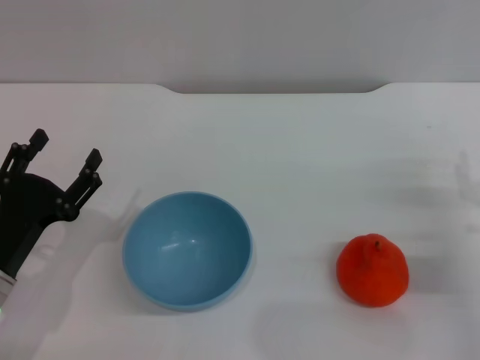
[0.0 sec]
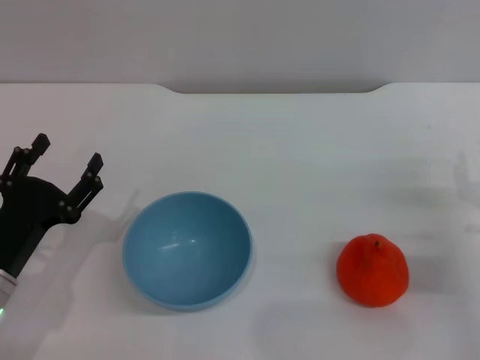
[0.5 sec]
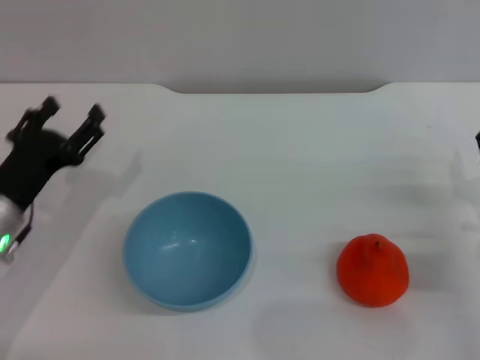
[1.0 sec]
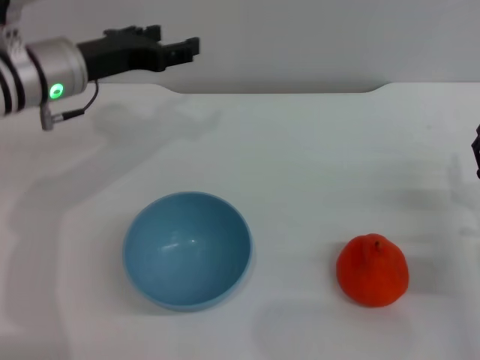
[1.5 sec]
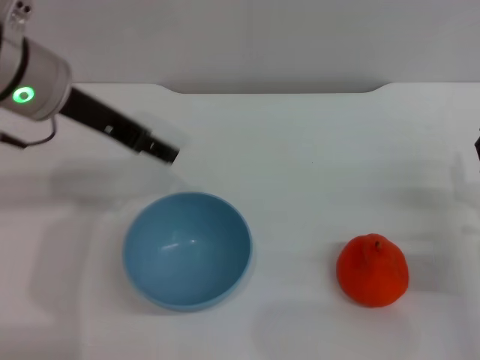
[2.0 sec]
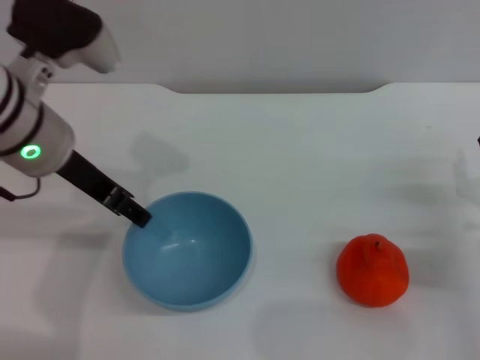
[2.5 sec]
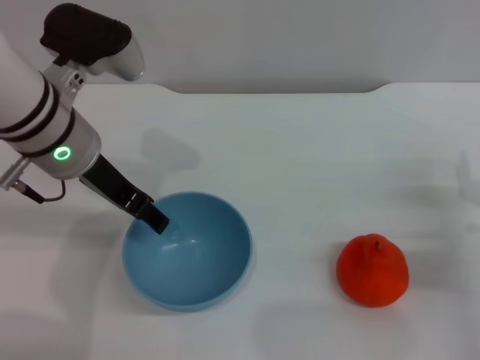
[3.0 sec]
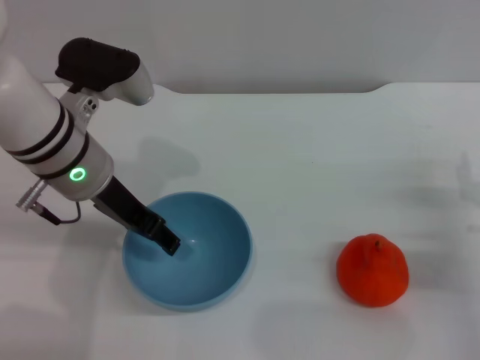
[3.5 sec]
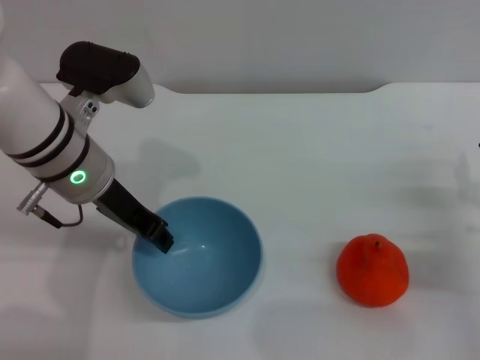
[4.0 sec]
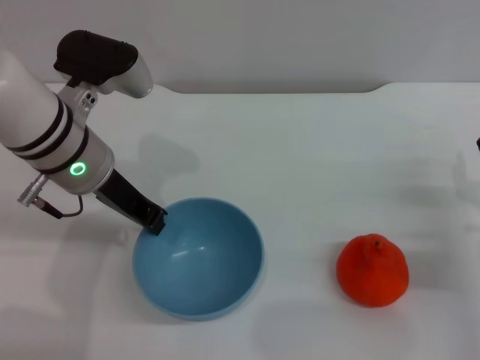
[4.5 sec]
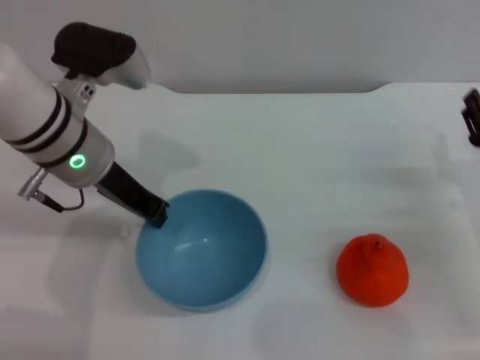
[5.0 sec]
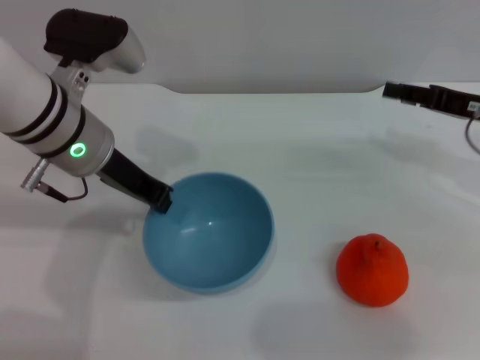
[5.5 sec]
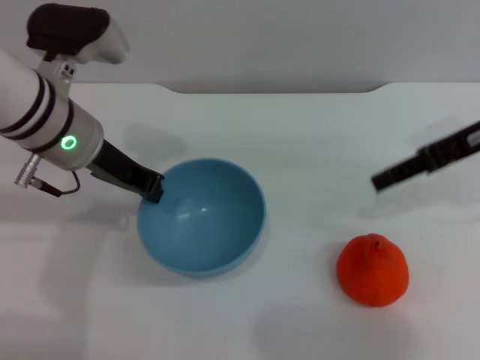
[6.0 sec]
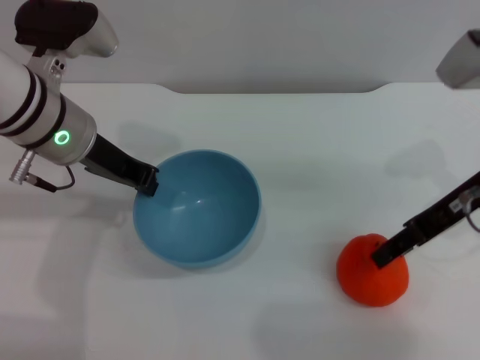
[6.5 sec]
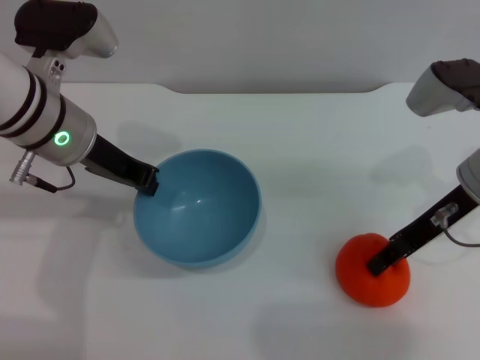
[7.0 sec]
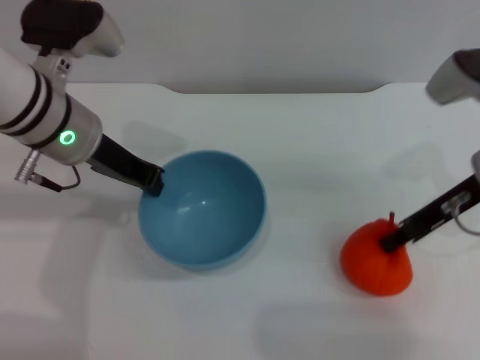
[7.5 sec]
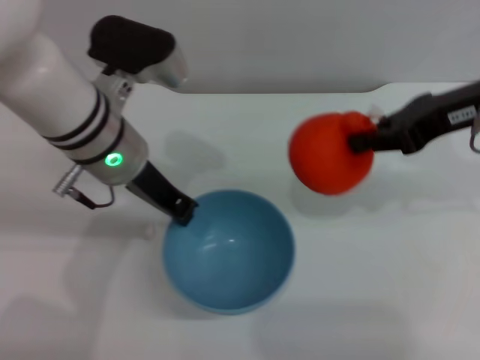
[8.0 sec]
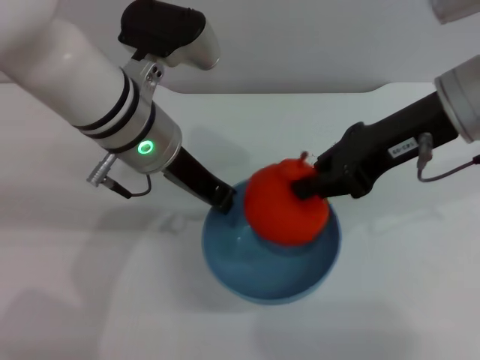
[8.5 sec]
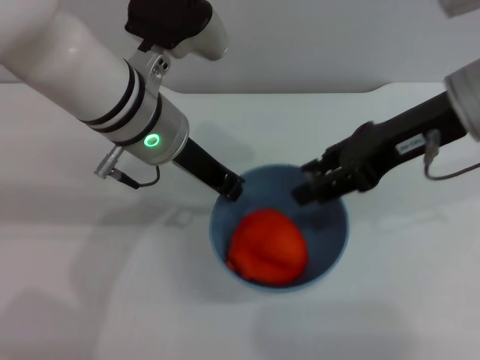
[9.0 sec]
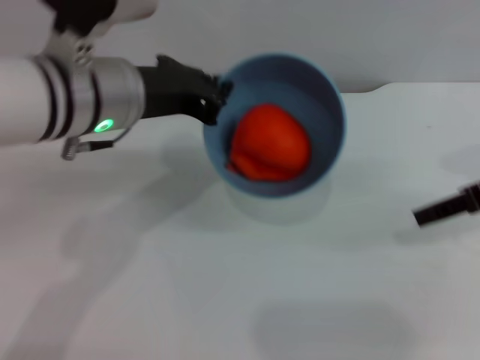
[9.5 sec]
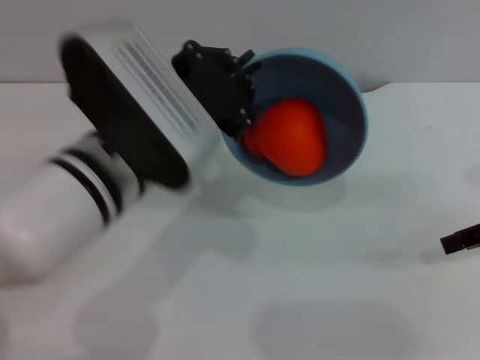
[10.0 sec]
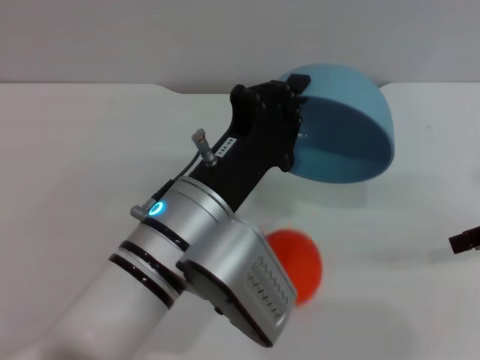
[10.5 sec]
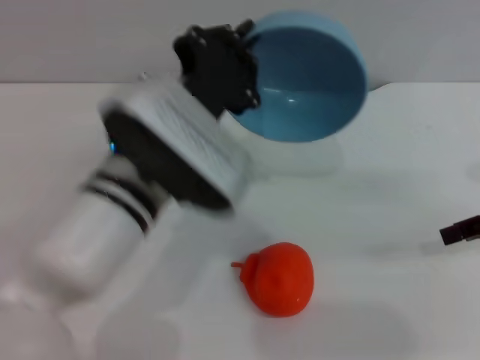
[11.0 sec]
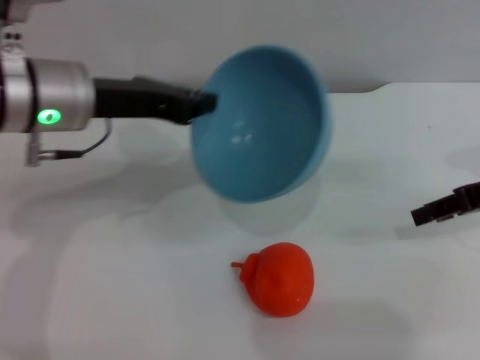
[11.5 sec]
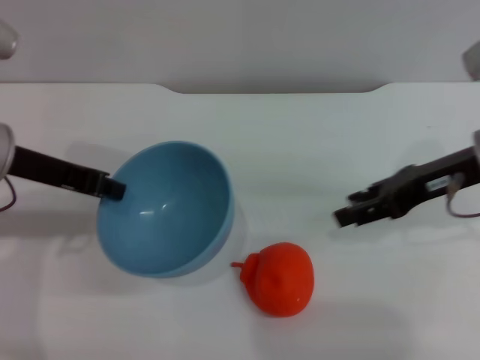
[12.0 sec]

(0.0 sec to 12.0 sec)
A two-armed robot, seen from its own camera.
Task of the whole recording: put the orange into the blue bowl and pour it out repeatedly.
Step, 0.0 sec - 5.5 sec: Pick up the bowl with the left gripper.
Step, 6.0 sec - 7.5 sec: Pick up the orange with the right gripper.
Step, 8.0 sec - 8.5 sec: Place the orange into the bowl.
Step, 9.0 sec - 10.5 sec: Pour the orange out of the bowl.
0.0 sec - 2.0 sec: The left gripper is displaced upward and forward by roughly 25 cm.
2.0 sec - 4.0 sec: The left gripper travels downward by some 10 cm.
4.0 sec - 6.0 sec: The left gripper closes up; the right gripper is displaced upward and forward by some 20 cm.
6.0 sec - 8.0 sec: The right gripper goes downward and returns, approximately 5 cm each way, and closes.
8.0 sec - 10.0 sec: The right gripper travels to the right and downward by some 10 cm, and opens up, while the left gripper goes some 10 cm backward.
10.0 sec - 12.0 sec: The left gripper heads to the left, covering about 15 cm. Meanwhile the right gripper shifts approximately 10 cm to the left.

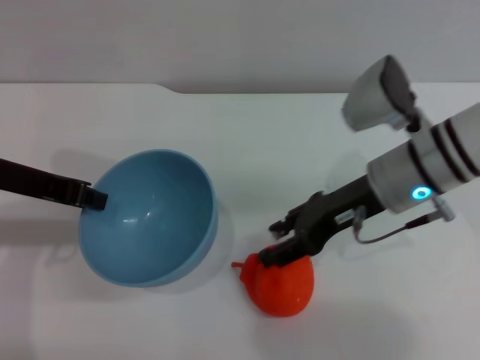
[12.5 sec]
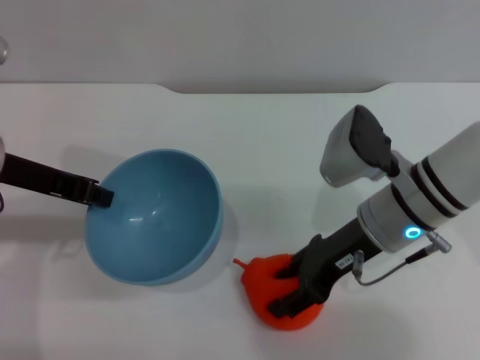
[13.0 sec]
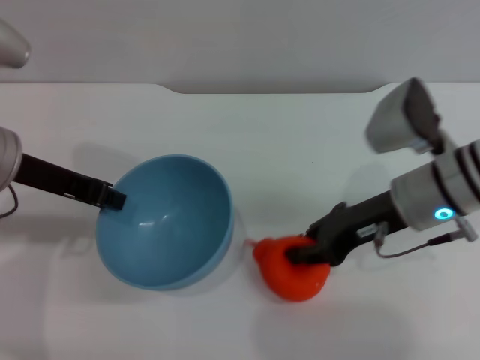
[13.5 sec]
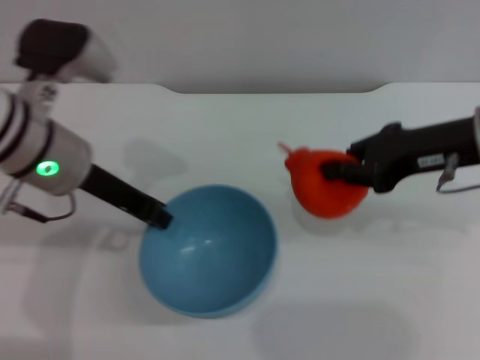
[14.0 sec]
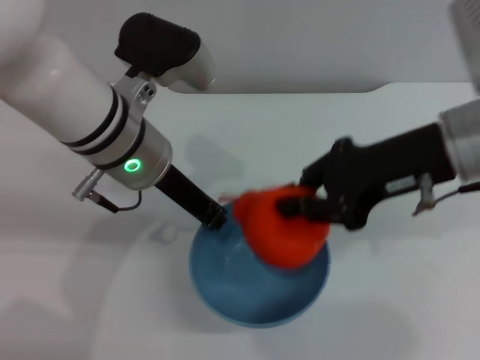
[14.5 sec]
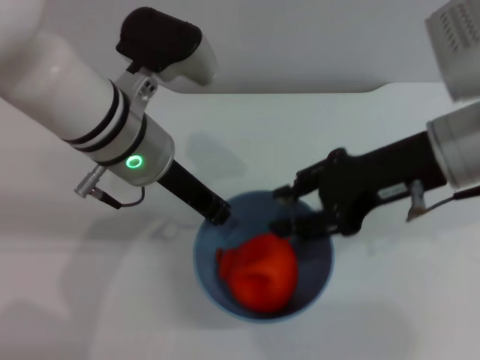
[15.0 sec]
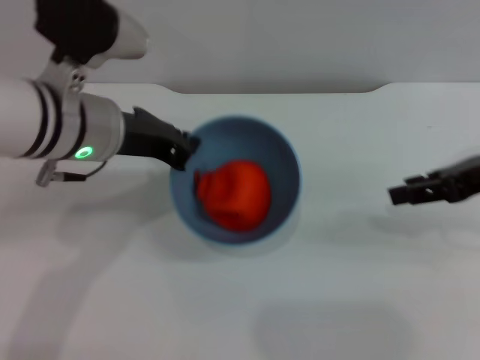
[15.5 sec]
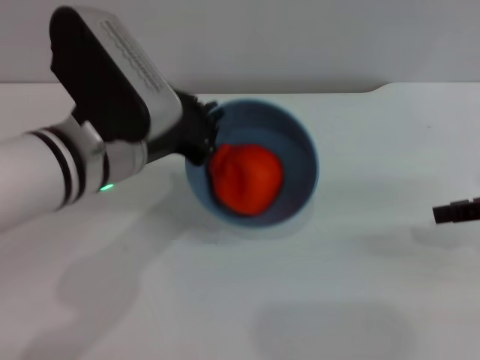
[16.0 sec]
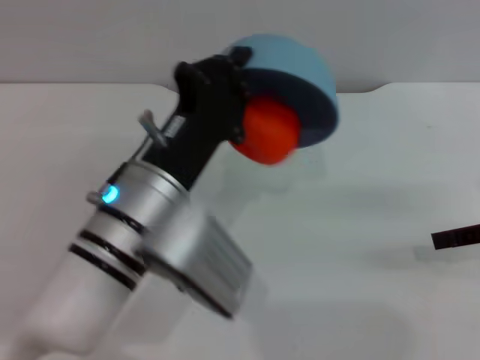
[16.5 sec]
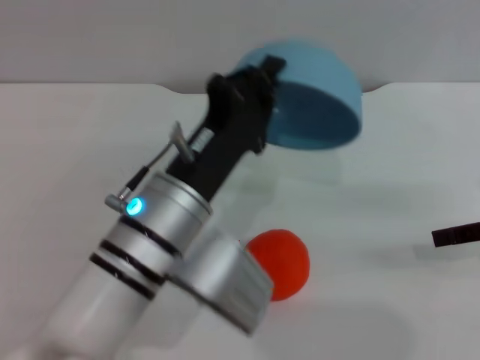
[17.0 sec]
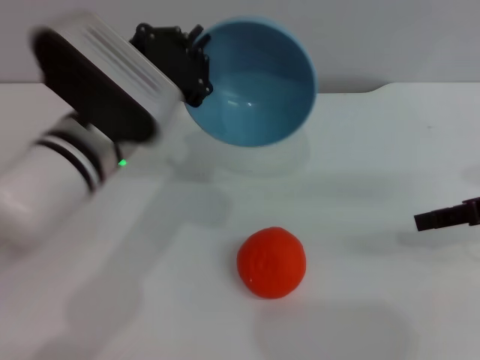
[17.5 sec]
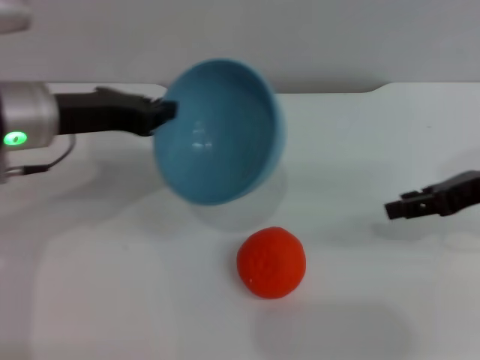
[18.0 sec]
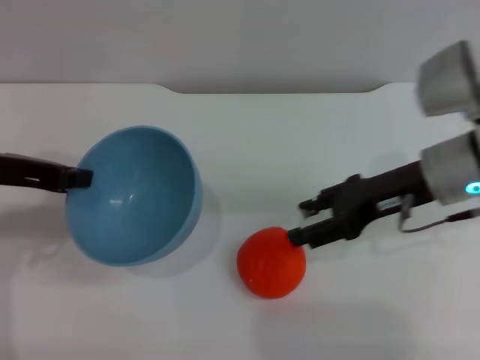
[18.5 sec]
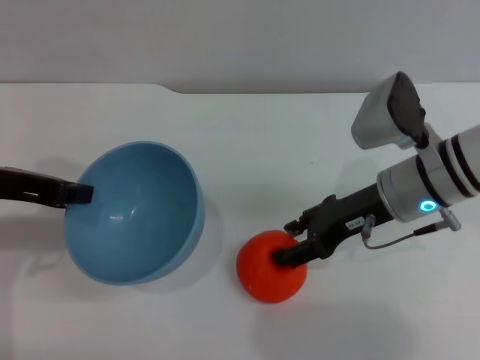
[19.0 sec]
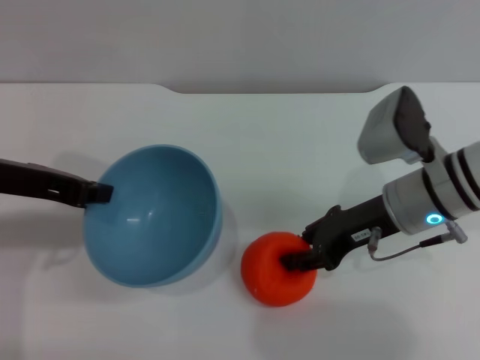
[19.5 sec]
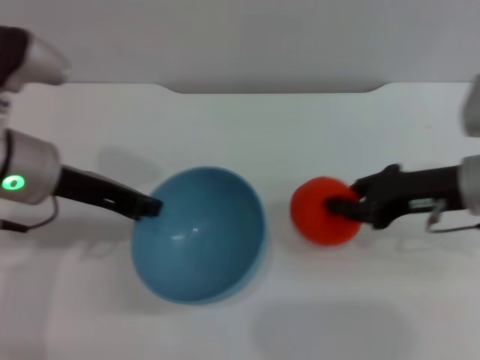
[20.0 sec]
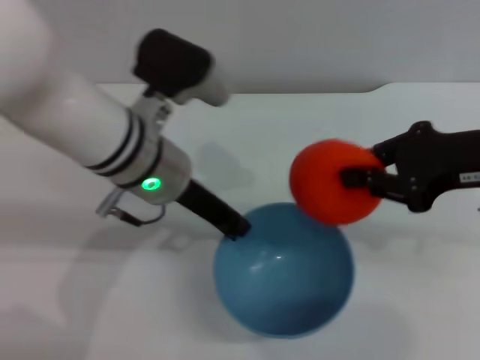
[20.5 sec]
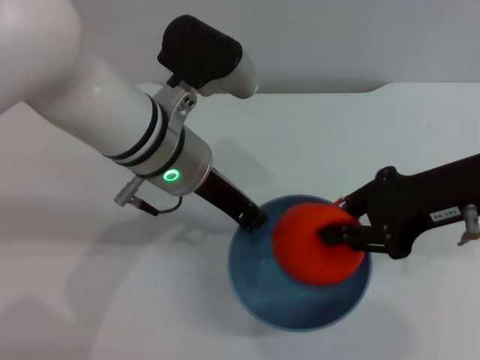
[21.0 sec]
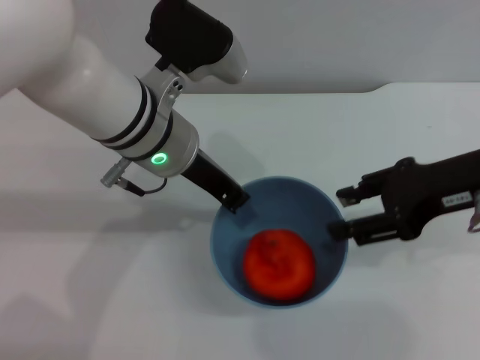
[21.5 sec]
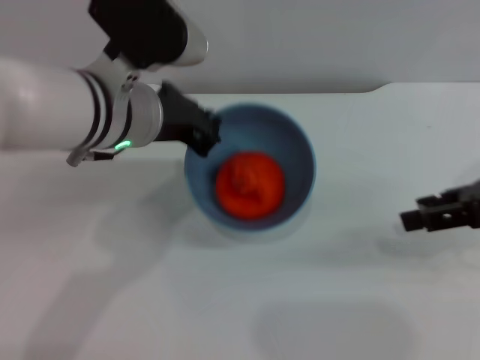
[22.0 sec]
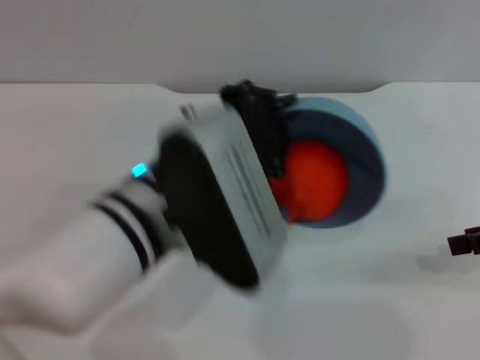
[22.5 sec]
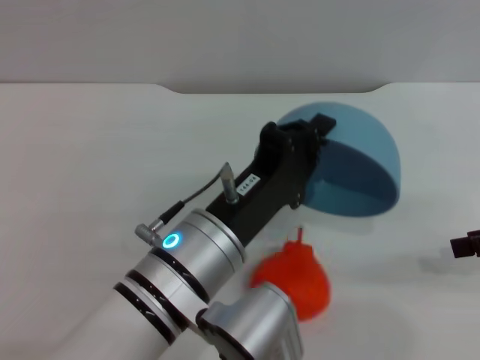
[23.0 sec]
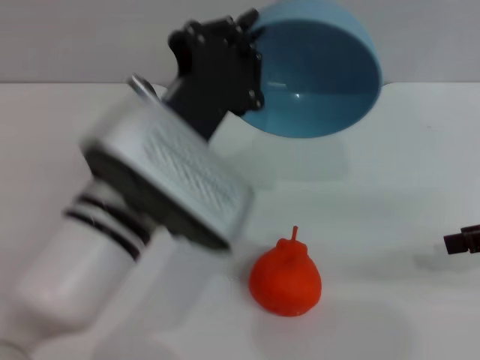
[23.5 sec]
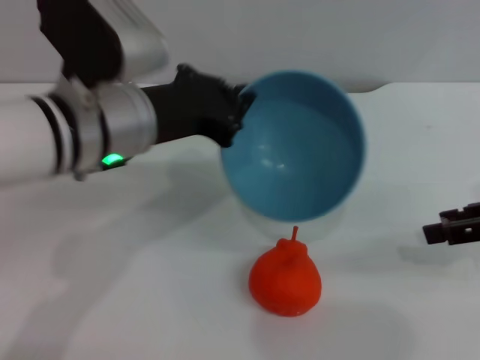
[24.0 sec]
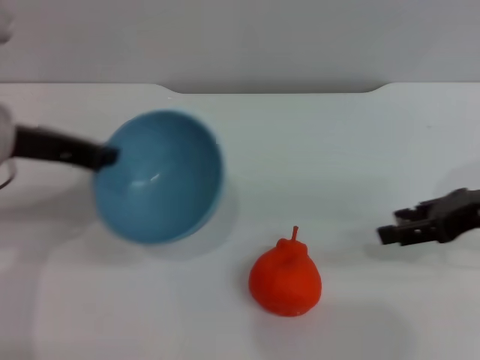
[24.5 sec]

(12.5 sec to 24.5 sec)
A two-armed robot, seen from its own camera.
Task of the whole recording: put the orange into the blue bowl and pour it out repeatedly.
Step, 14.0 sec - 15.0 sec: Place the orange into the bowl.
Step, 15.5 sec - 16.5 sec: Pour the orange out of the bowl.
Step, 17.0 sec - 20.0 sec: Pick up the orange with the right gripper.
Step, 20.5 sec - 21.5 sec: Place the orange into the bowl.
Step, 22.0 sec - 23.0 sec: Pour the orange out of the bowl.
12.5 sec - 14.5 sec: The left gripper moves to the right, approximately 15 cm, while the right gripper travels upward by about 10 cm, and closes up.
14.5 sec - 16.5 sec: The right gripper heads to the right, covering roughly 15 cm, and opens up, while the left gripper goes roughly 10 cm backward and downward.
16.5 sec - 18.5 sec: The left gripper moves to the left, some 20 cm. The right gripper goes approximately 15 cm to the left and forward.
18.5 sec - 20.5 sec: The right gripper shifts roughly 5 cm upward, and closes up; the left gripper goes about 15 cm to the right.
20.5 sec - 22.5 sec: The left gripper is displaced backward by about 10 cm. The right gripper shifts approximately 10 cm to the right, and opens.
22.5 sec - 24.5 sec: The left gripper heads to the left and forward, covering about 20 cm, while the right gripper shifts approximately 5 cm to the left.

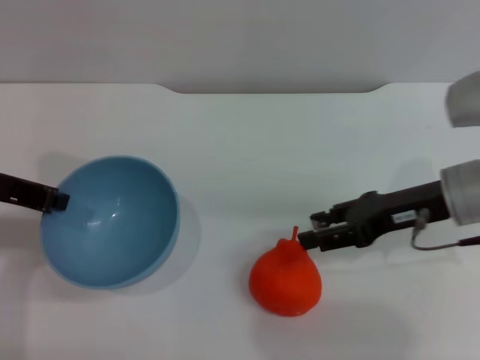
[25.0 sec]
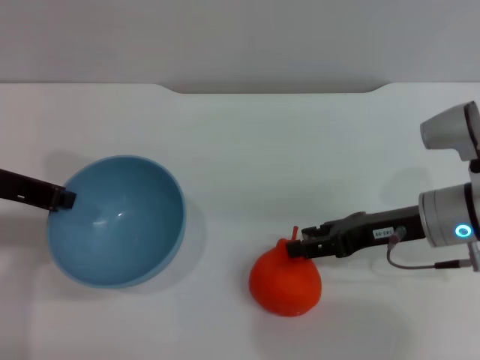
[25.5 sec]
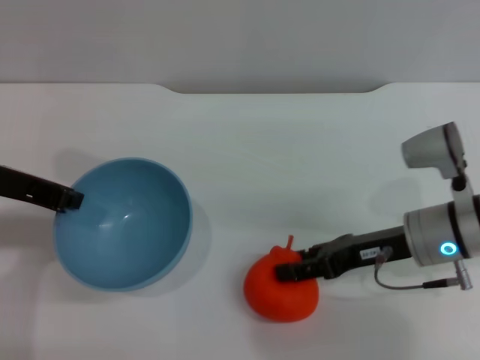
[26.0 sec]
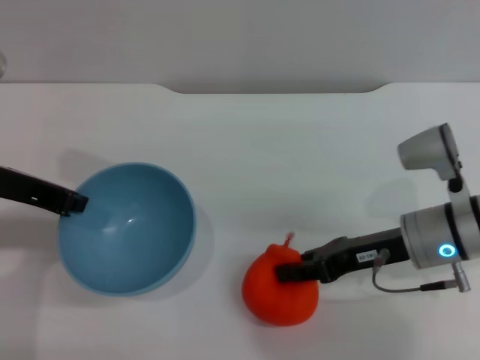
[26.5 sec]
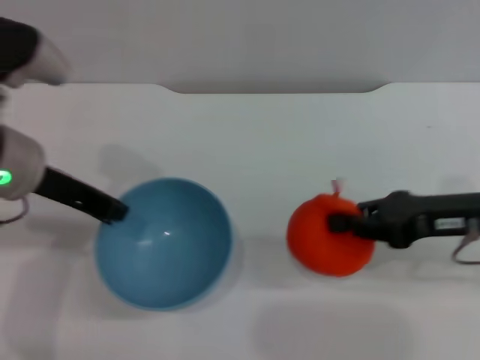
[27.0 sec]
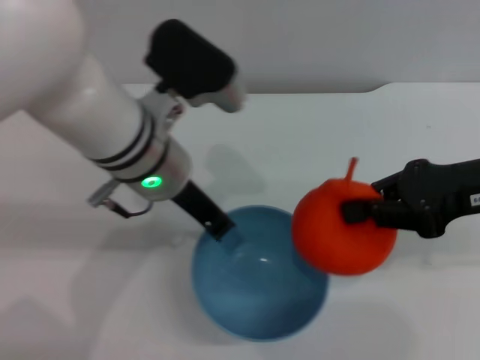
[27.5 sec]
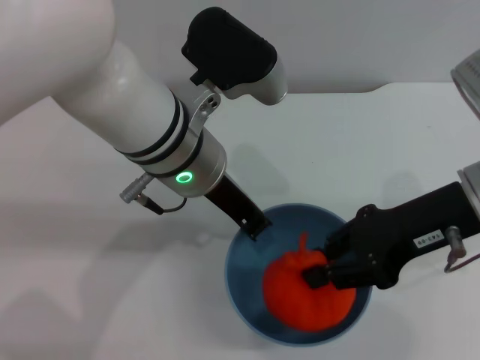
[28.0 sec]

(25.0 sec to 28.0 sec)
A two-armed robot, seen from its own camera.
Task of the whole recording: put the orange into the blue bowl and pour it out repeatedly.
Step, 25.0 sec - 27.0 sec: Pick up the orange with the right gripper.
25.0 sec - 26.5 sec: The right gripper shifts by some 5 cm, and closes its fingers.
26.5 sec - 28.0 sec: The left gripper shifts some 20 cm to the right, while the right gripper heads upward, covering some 10 cm.
